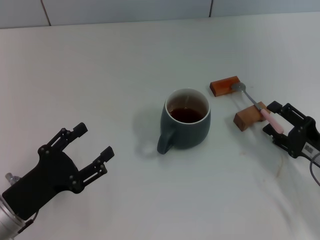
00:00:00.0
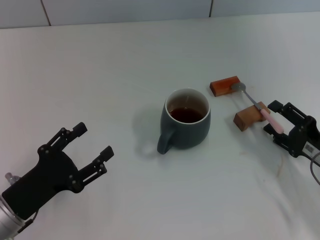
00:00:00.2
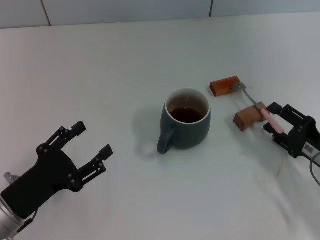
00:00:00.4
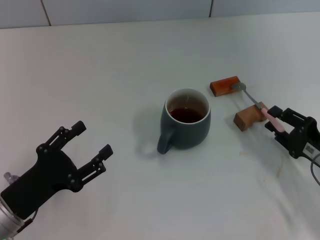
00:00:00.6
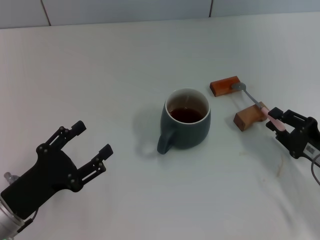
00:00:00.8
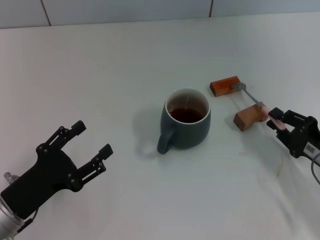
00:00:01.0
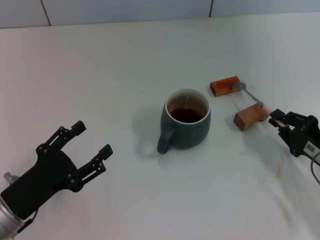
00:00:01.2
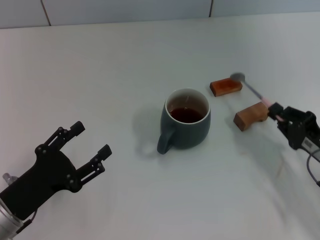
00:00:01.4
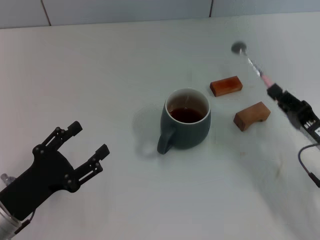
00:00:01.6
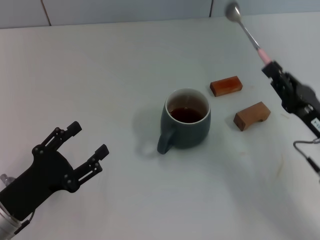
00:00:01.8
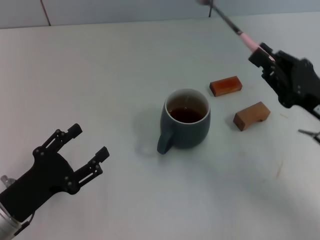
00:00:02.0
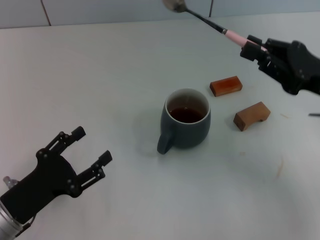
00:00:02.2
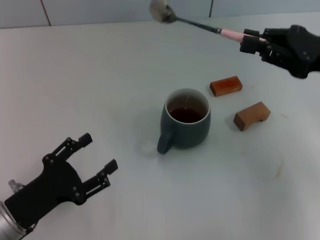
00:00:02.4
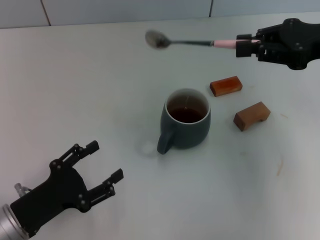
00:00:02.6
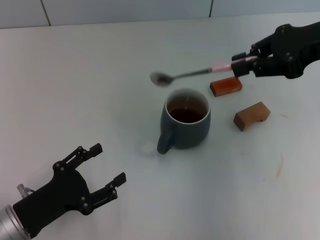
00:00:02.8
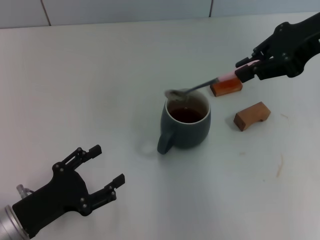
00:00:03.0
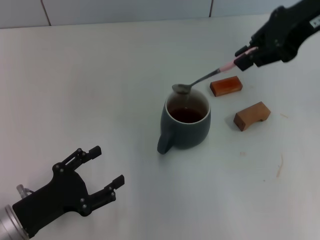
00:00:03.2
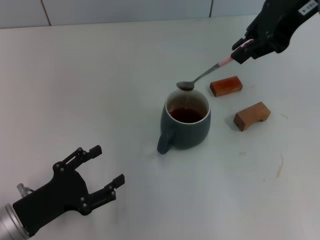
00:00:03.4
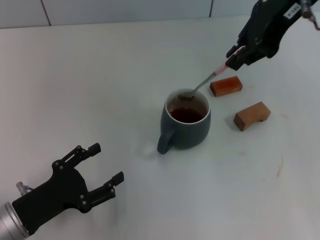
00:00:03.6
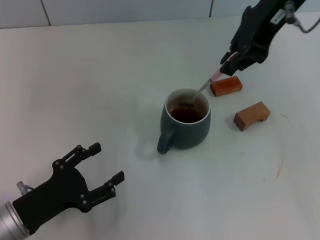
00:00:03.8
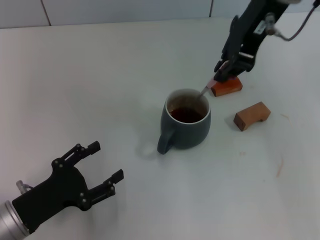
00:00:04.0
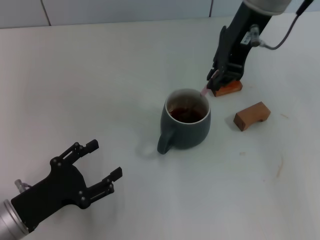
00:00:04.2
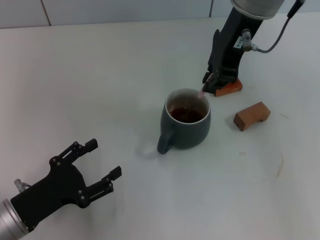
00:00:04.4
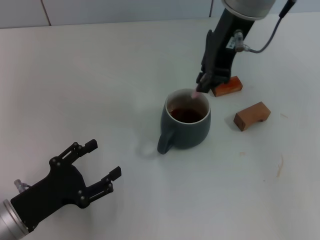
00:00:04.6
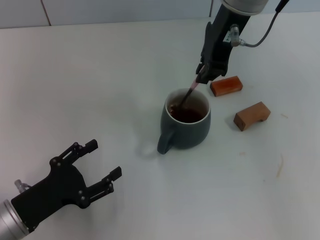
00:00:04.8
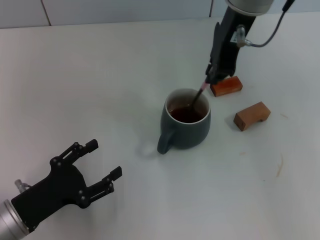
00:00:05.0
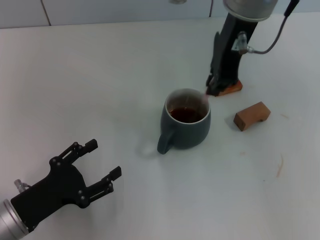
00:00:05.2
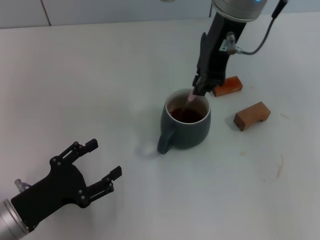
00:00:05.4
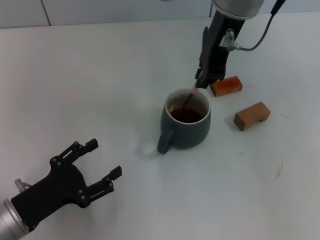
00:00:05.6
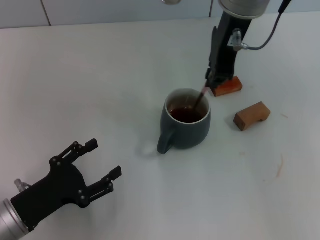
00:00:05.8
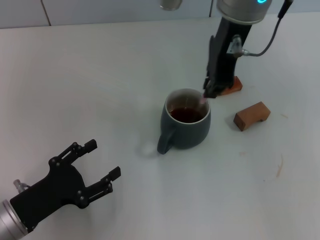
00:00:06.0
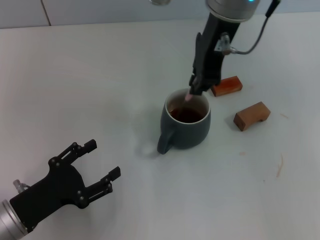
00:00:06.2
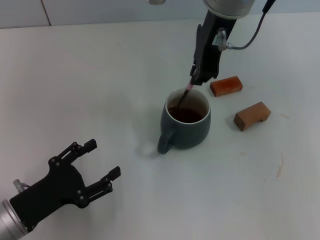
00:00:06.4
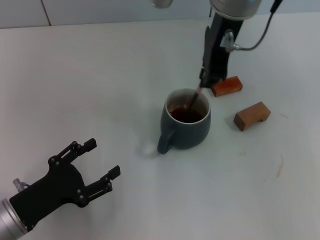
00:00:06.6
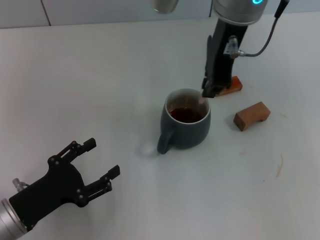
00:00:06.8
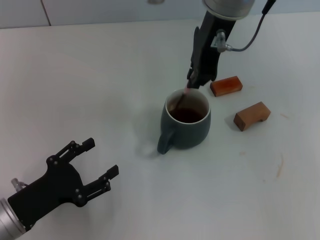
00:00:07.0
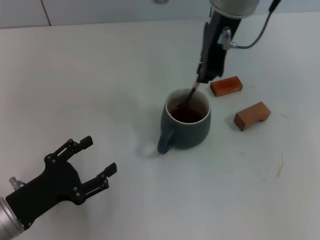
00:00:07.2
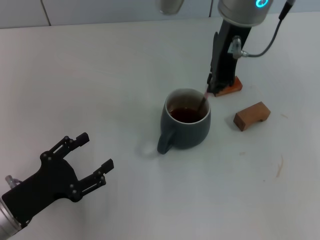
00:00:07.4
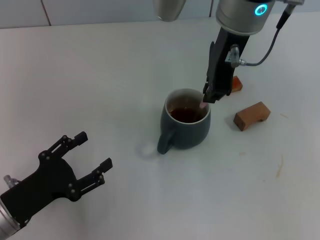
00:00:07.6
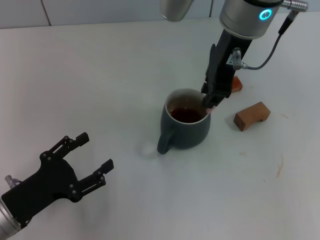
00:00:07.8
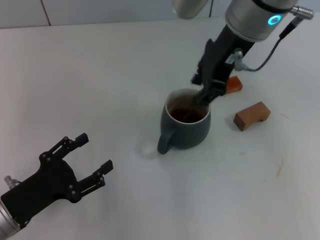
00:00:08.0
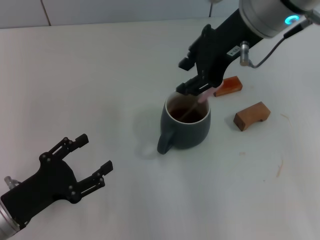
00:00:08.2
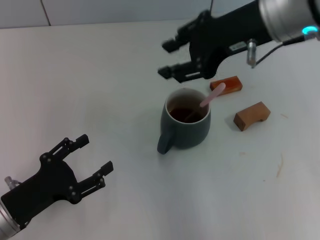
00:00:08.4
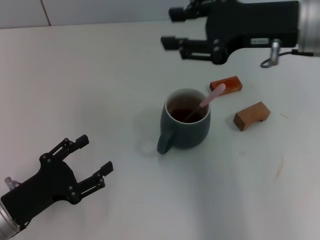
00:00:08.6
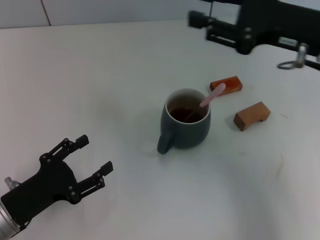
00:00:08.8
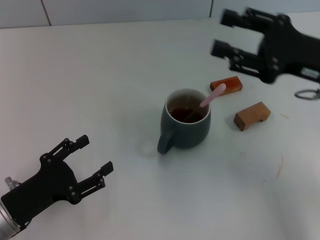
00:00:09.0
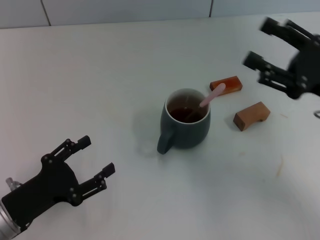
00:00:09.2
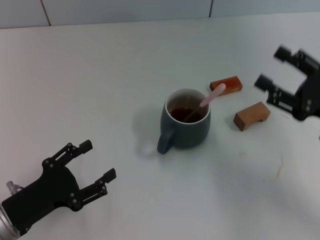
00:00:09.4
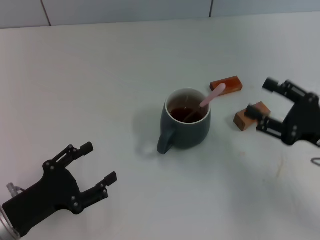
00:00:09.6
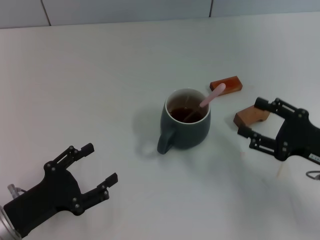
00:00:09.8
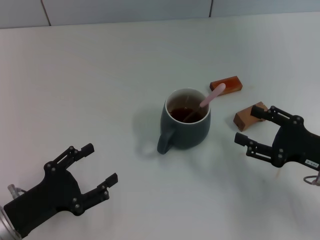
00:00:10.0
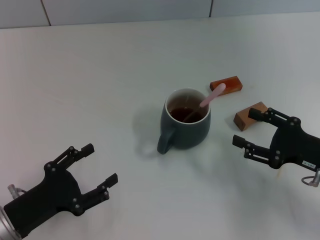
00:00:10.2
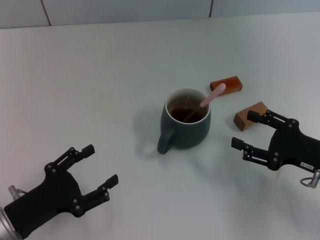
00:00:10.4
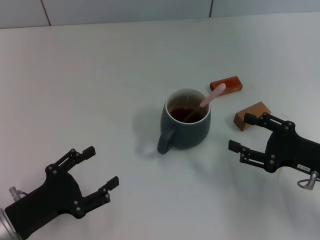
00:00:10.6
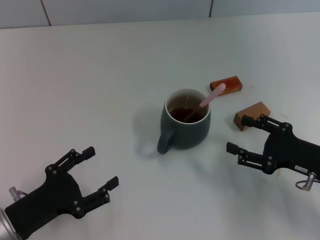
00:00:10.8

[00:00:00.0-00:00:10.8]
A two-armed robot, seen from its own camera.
Task of the whole recording: Move the grey cup to the center, lift the pink spoon, stir it three times in the cup, and put the spoon into the cup.
Step, 00:00:02.0 to 00:00:08.2: Stir the coffee in the cup with the right gripper.
00:00:00.0 to 00:00:01.6: The right gripper closes its fingers.
00:00:01.6 to 00:00:03.0: The right gripper shifts approximately 30 cm upward and forward.
00:00:03.0 to 00:00:04.6: The right gripper moves to the left, approximately 15 cm.
00:00:04.6 to 00:00:07.8: There are only small adjustments of the grippers.
00:00:07.8 to 00:00:09.2: The right gripper moves to the right, downward and backward, approximately 25 cm, and opens its fingers.
00:00:09.2 to 00:00:10.8: The right gripper shifts roughly 10 cm downward.
